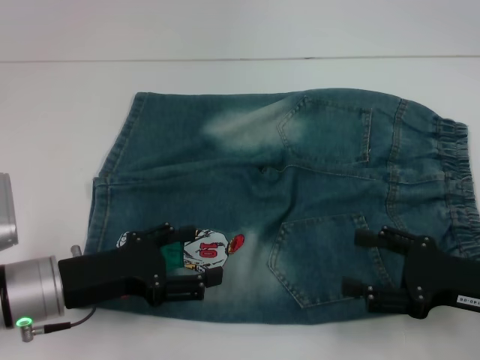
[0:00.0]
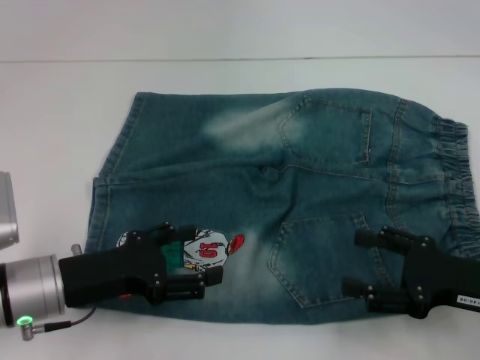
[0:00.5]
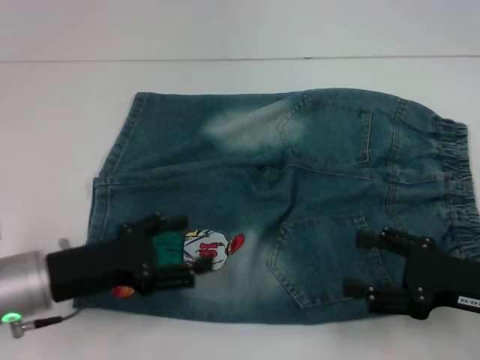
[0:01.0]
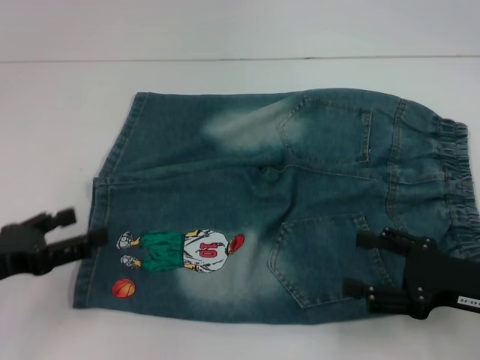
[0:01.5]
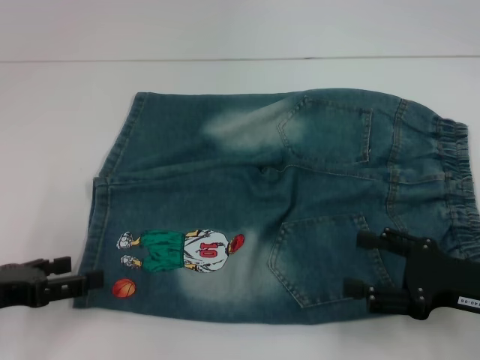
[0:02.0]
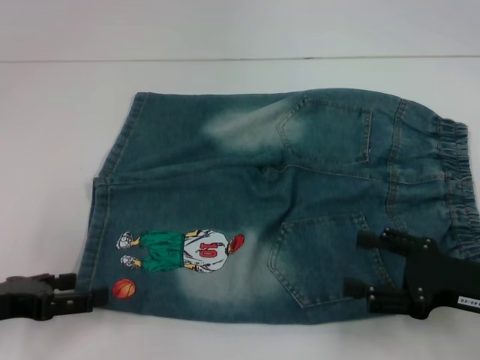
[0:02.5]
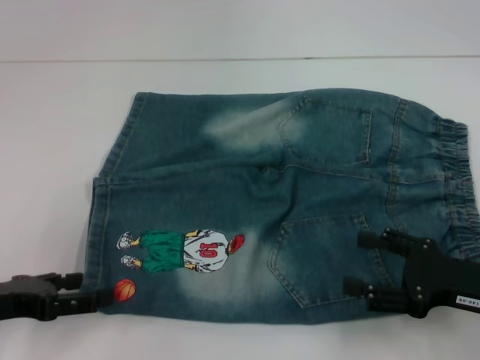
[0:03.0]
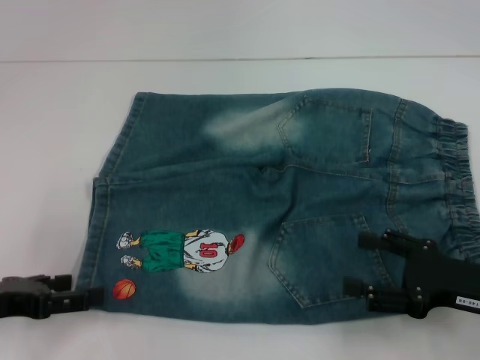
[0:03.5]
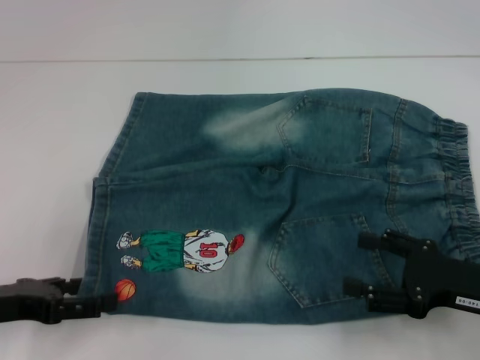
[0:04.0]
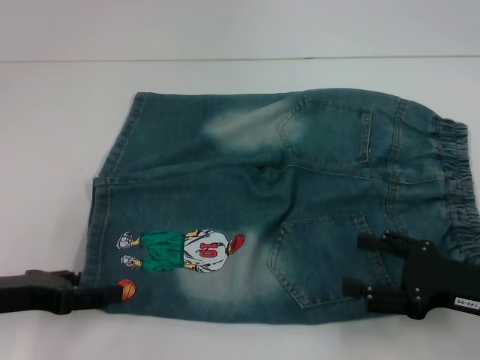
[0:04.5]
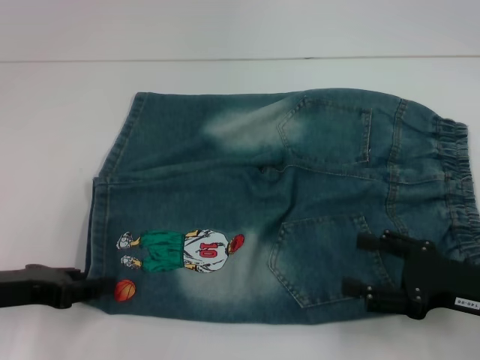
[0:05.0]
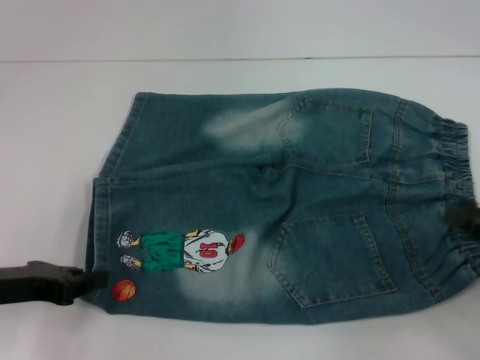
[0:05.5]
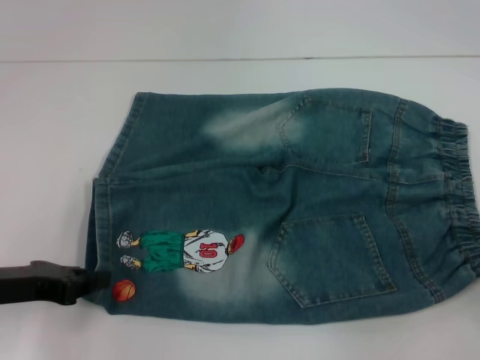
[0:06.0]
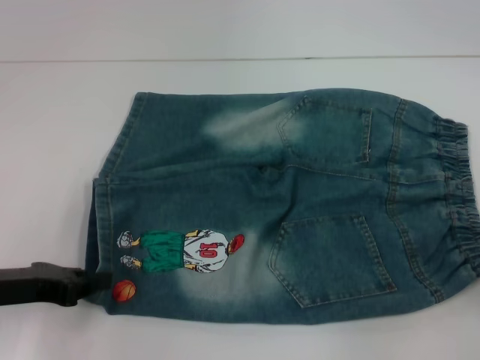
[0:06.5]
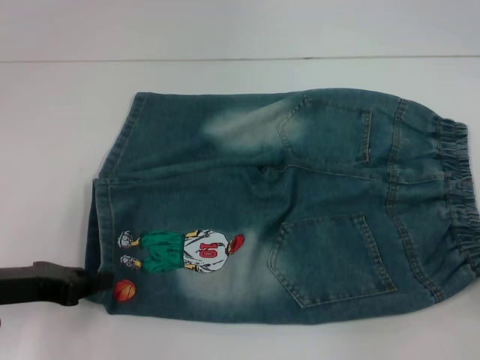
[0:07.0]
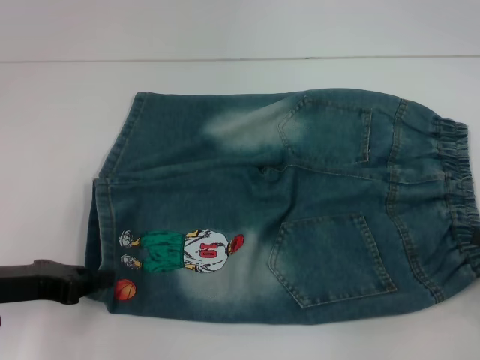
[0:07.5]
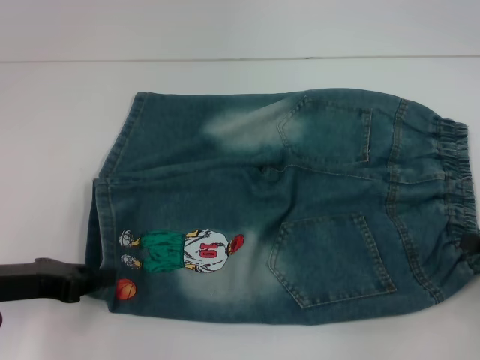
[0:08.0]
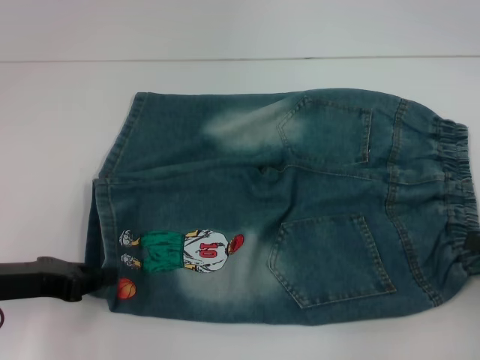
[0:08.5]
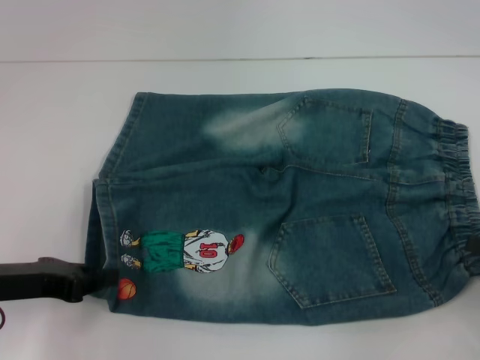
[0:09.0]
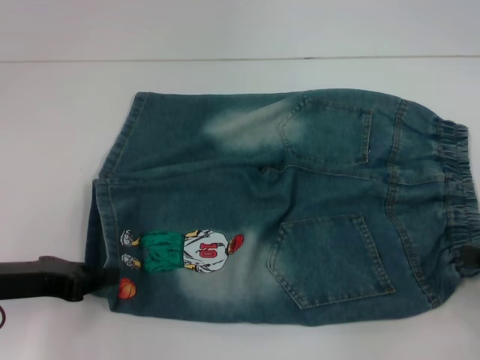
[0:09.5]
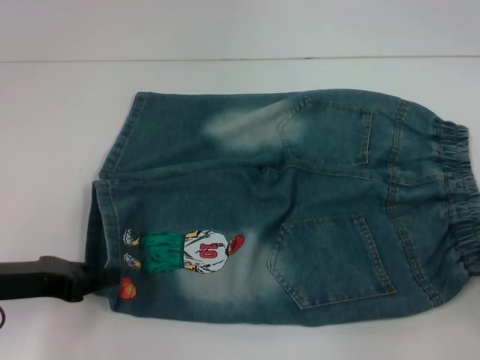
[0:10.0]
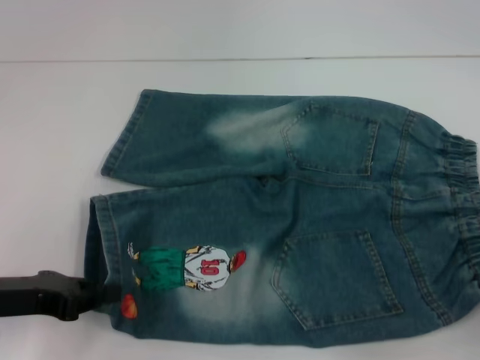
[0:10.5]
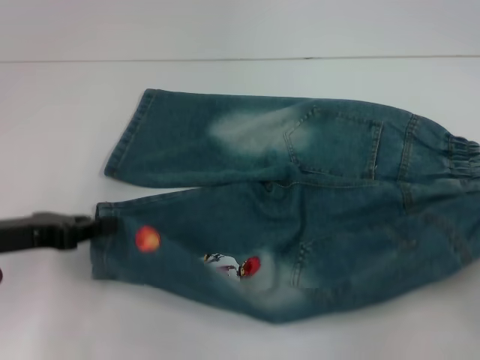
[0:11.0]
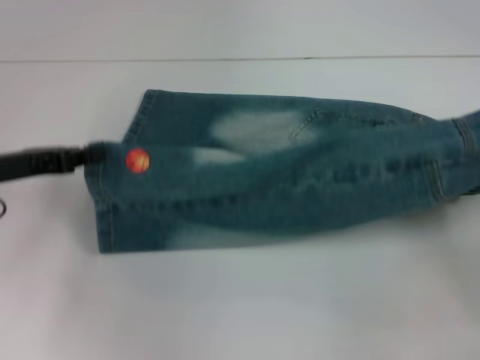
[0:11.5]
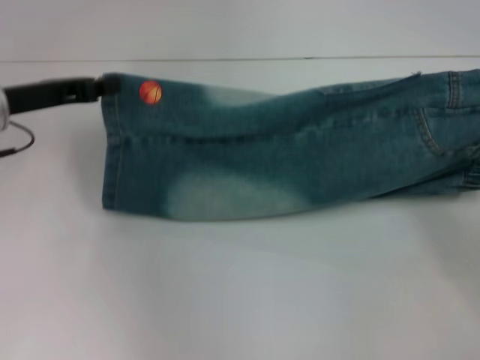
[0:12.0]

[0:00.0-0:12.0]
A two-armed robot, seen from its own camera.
Step, 0:00.0 to 0:04.5: Grab the lower left pant leg with your left hand.
Step, 0:05.0 to 0:09.5: Hold the lower right waistband with your right hand.
0:00.0 to 0:02.0: The left gripper heads to the left, covering about 10 cm.
0:02.0 to 0:04.0: The grippers move only a little.
0:04.0 to 0:06.0: The left gripper closes. The right gripper heads to the right, covering some 15 cm.
0:06.0 to 0:08.0: There are only small adjustments of the grippers.
0:08.0 to 0:10.0: The right gripper closes its fingers.
0:10.0 to 0:12.0: The left gripper shifts roughly 15 cm forward and upward, while the right gripper moves forward, about 5 cm.

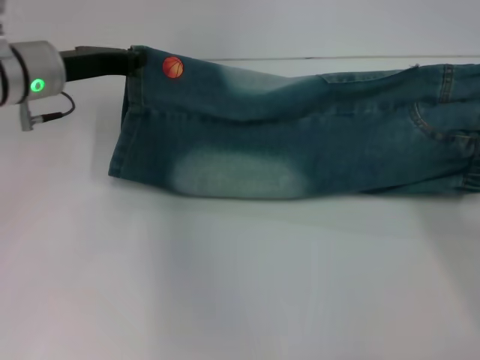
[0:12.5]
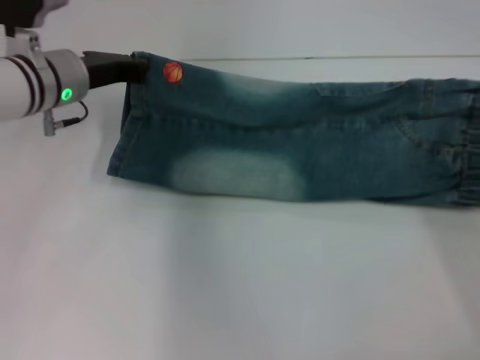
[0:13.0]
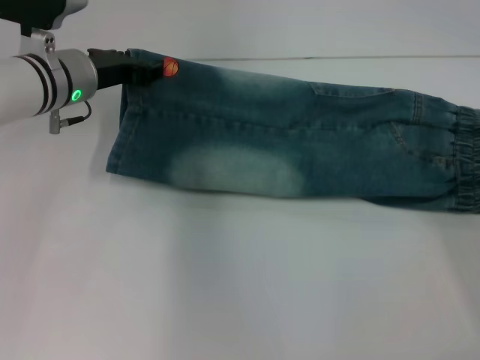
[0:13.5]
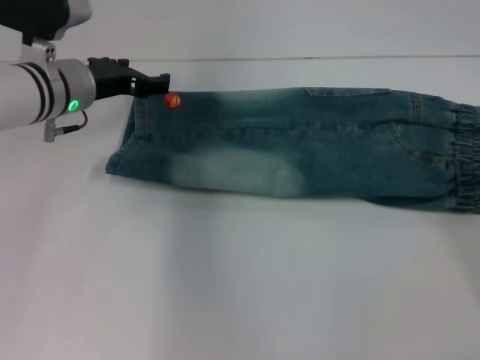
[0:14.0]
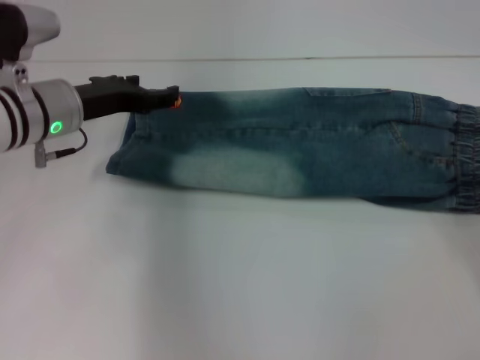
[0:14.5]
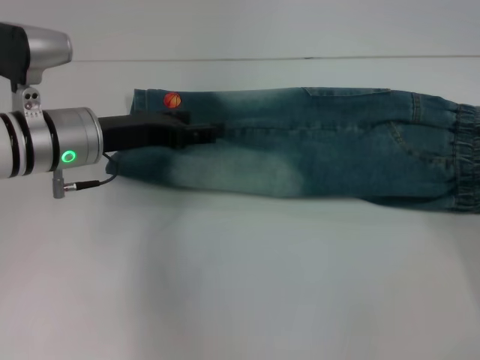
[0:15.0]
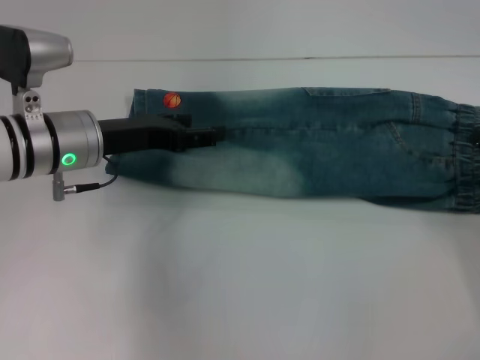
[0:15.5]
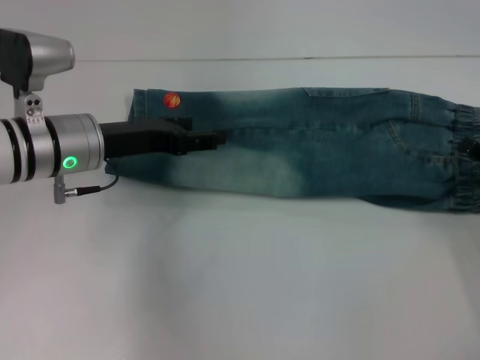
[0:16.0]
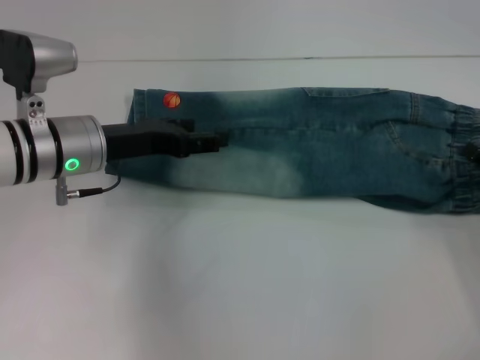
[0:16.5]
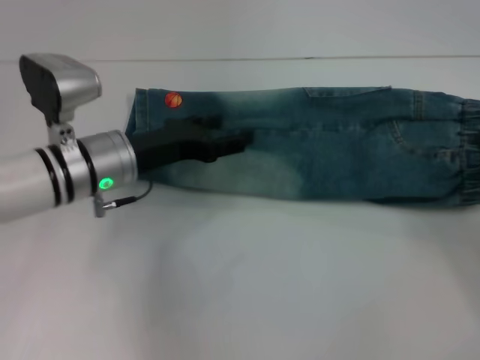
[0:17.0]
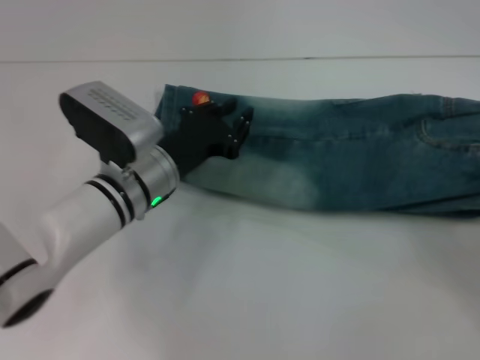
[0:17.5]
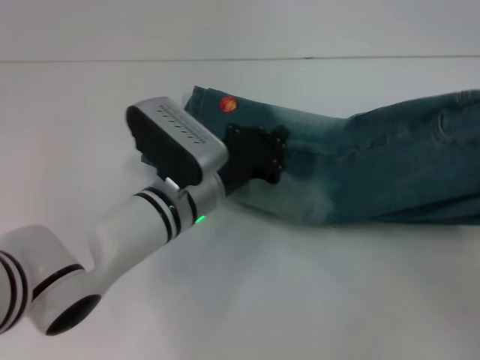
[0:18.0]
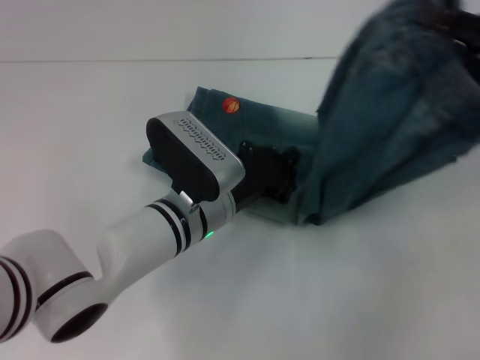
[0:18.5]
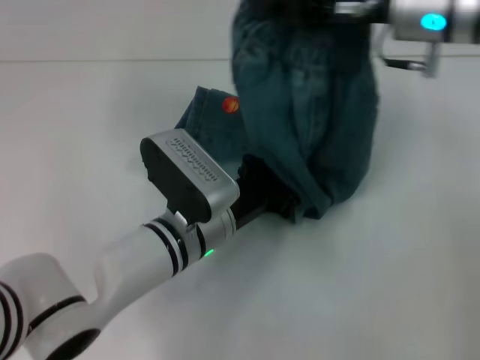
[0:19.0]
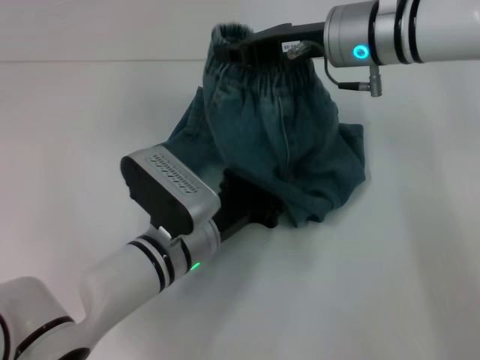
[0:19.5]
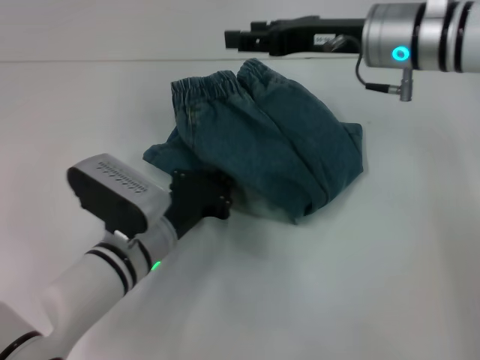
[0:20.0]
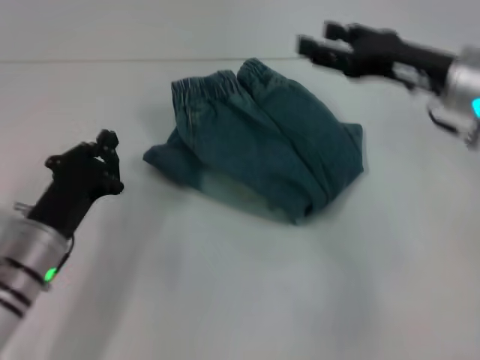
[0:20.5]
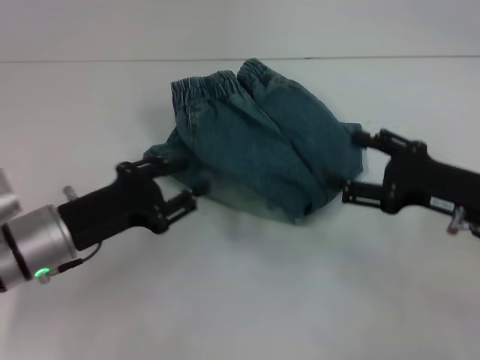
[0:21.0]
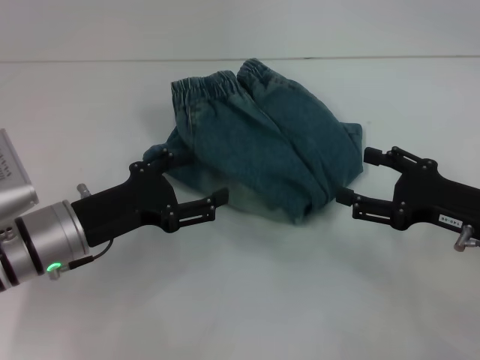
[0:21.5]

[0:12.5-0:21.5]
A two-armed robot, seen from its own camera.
Step, 0:14.0 to 0:16.0: Grab the waistband with your right hand.
Step, 0:16.5 to 0:19.5: Press the middle of the pants with your left hand.
0:12.5 to 0:14.5: The right gripper opens its fingers, while the left gripper opens.
0:14.5 to 0:17.0: The left gripper moves approximately 5 cm. The right gripper closes its fingers.
0:17.0 to 0:19.5: The left gripper heads to the right, downward and backward, covering about 10 cm, and closes up. Meanwhile the right gripper travels to the left, forward and upward by some 30 cm.
0:19.5 to 0:21.5: The left gripper goes approximately 15 cm to the left, and opens up. Meanwhile the right gripper is displaced backward, to the right and downward by roughly 25 cm, and opens up.
